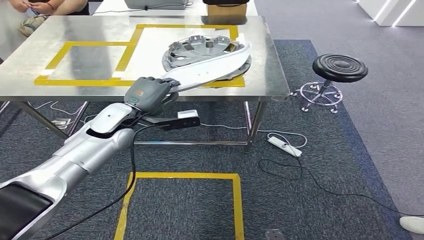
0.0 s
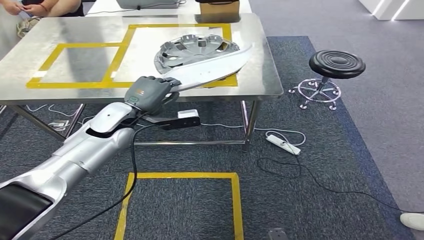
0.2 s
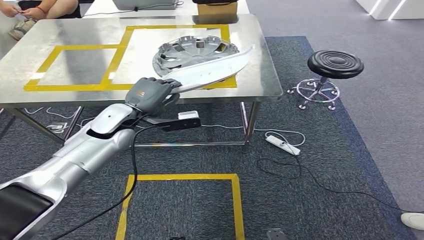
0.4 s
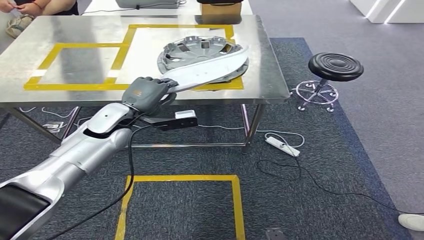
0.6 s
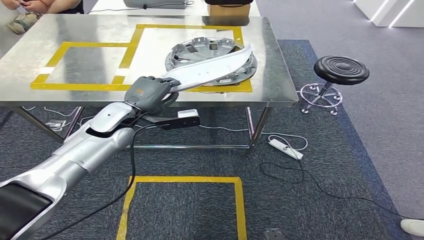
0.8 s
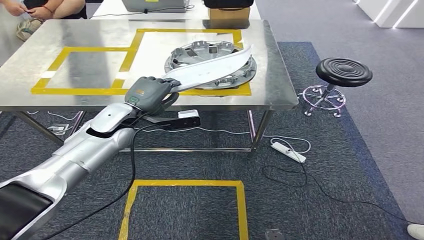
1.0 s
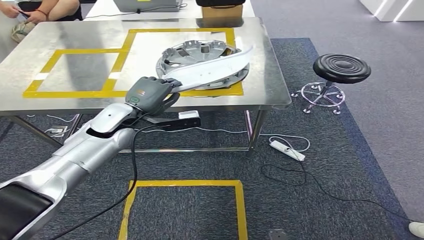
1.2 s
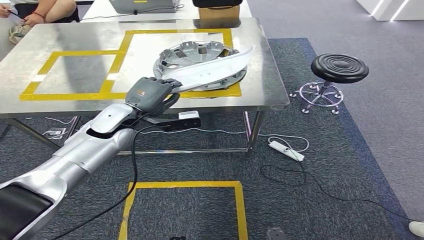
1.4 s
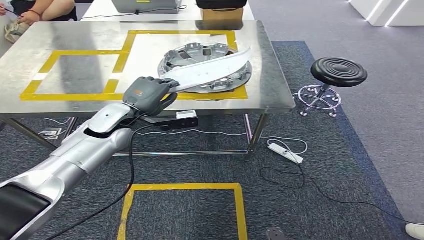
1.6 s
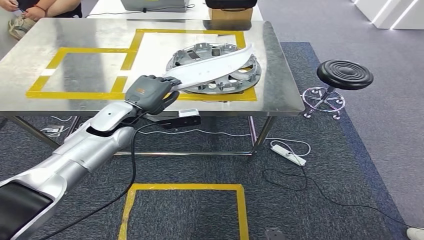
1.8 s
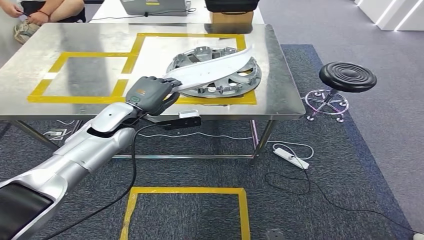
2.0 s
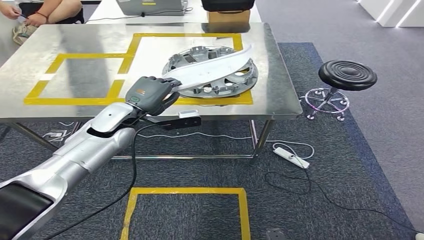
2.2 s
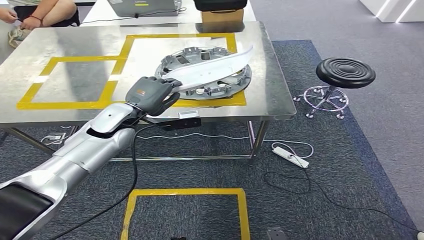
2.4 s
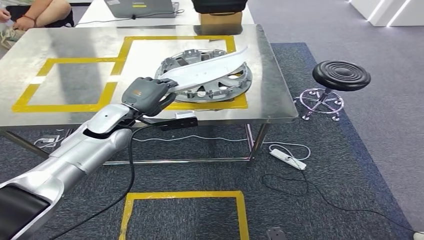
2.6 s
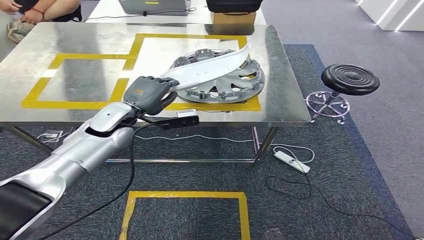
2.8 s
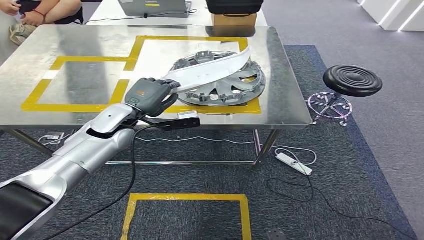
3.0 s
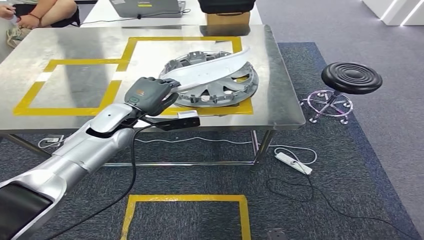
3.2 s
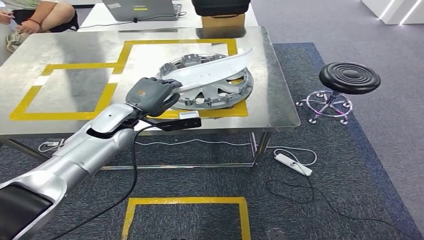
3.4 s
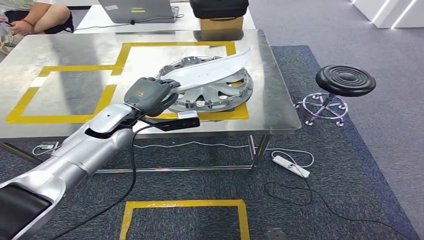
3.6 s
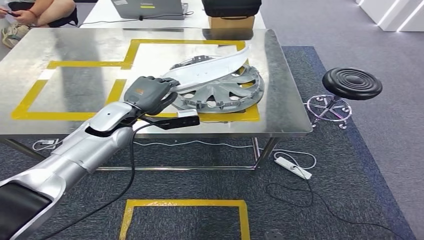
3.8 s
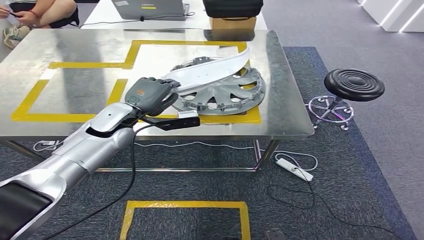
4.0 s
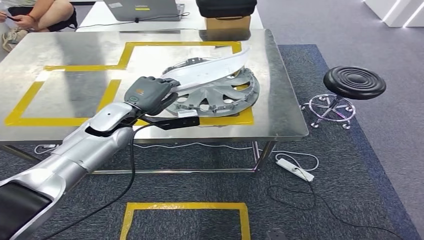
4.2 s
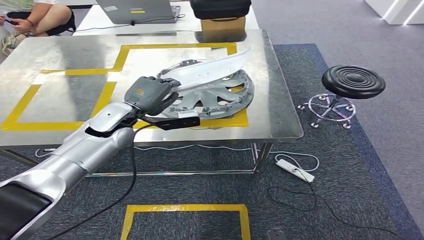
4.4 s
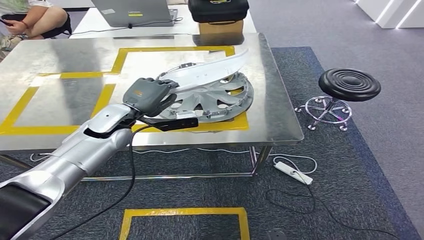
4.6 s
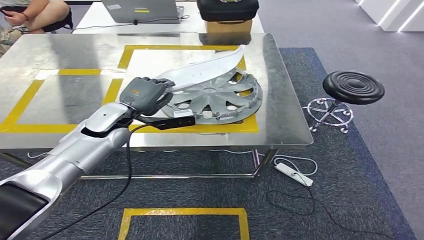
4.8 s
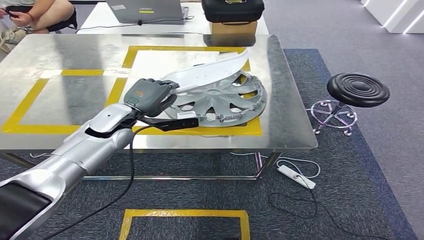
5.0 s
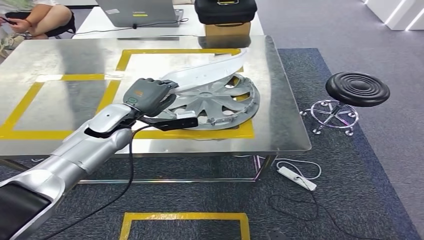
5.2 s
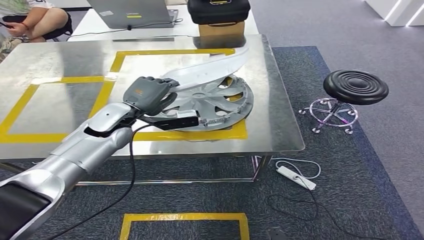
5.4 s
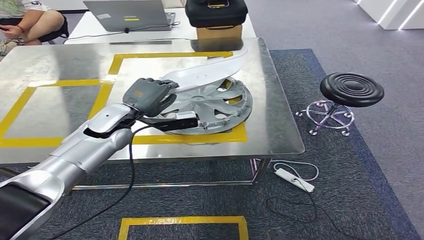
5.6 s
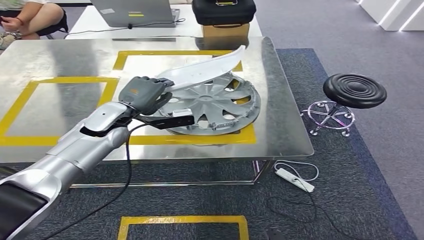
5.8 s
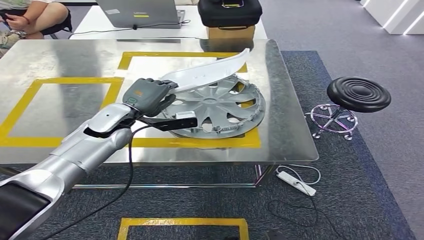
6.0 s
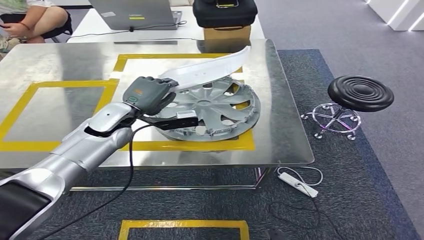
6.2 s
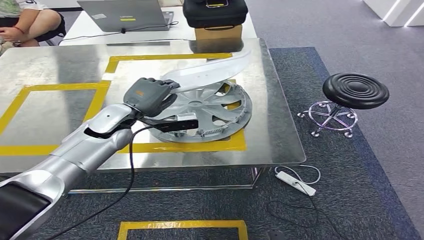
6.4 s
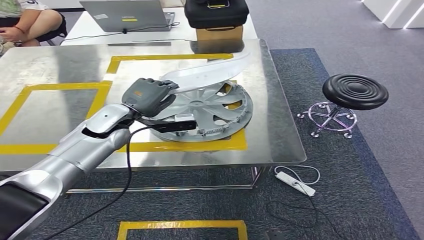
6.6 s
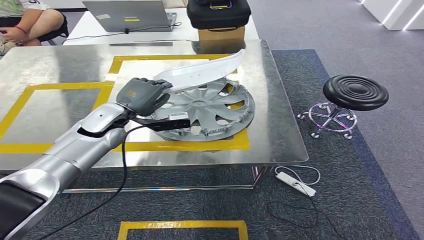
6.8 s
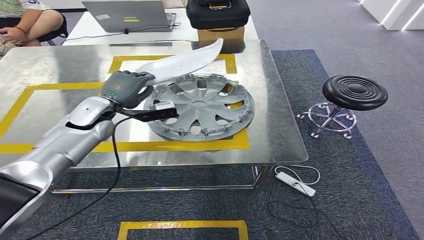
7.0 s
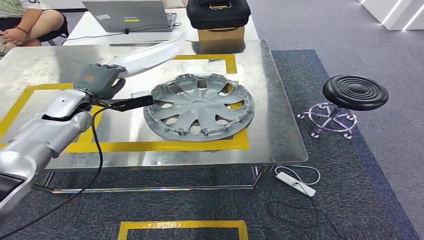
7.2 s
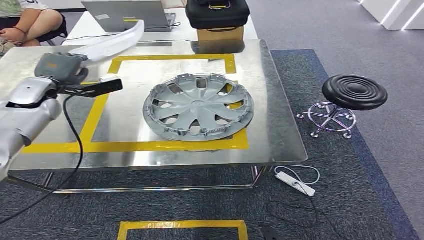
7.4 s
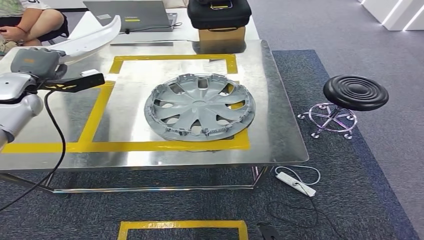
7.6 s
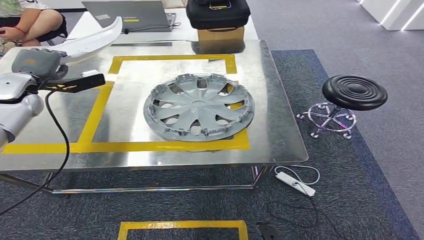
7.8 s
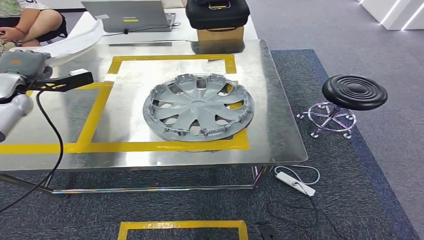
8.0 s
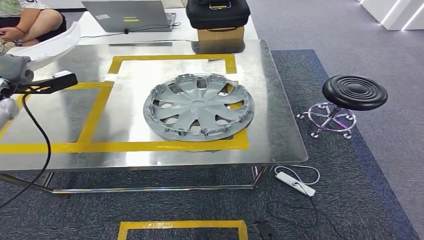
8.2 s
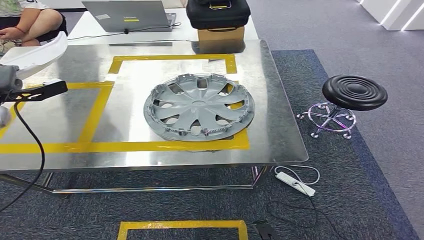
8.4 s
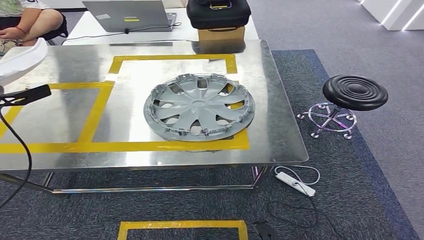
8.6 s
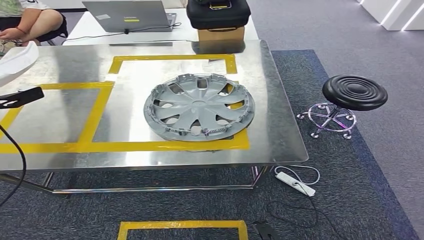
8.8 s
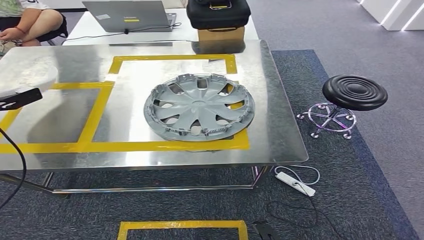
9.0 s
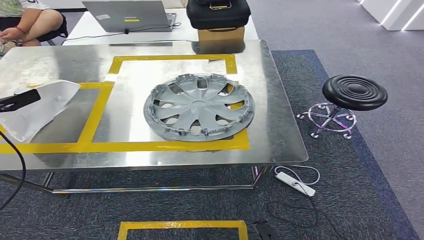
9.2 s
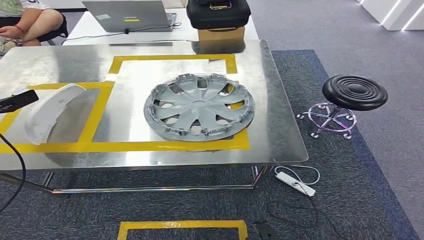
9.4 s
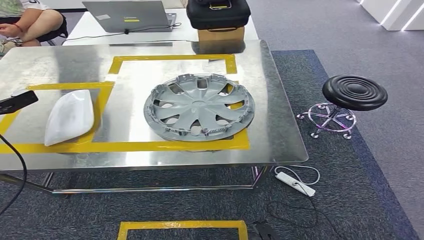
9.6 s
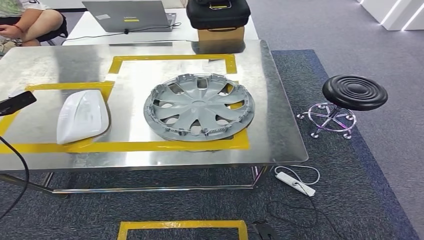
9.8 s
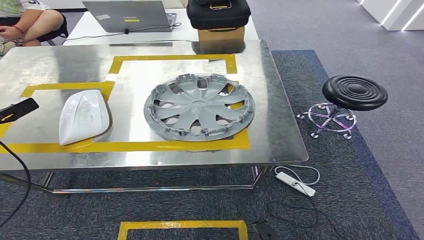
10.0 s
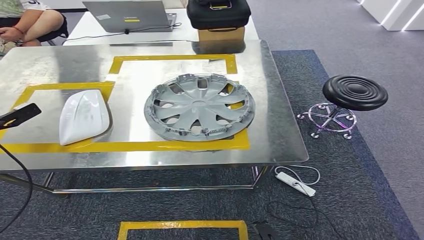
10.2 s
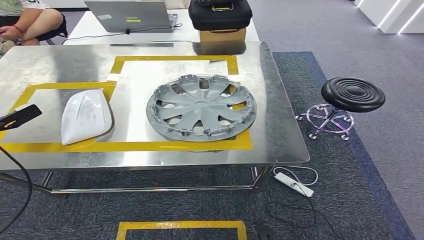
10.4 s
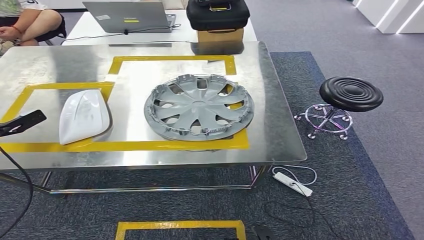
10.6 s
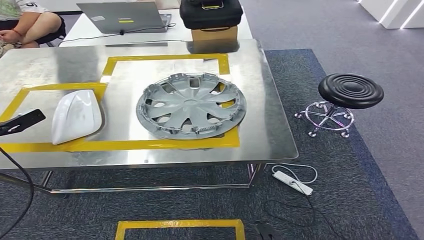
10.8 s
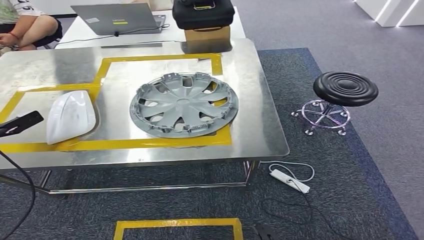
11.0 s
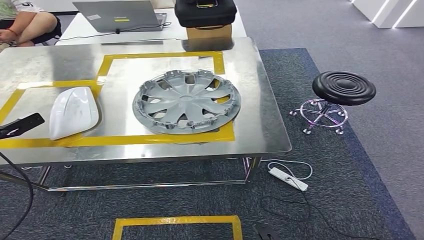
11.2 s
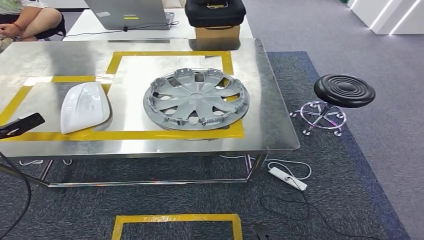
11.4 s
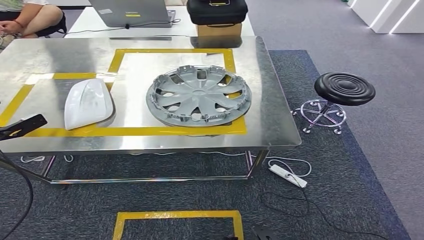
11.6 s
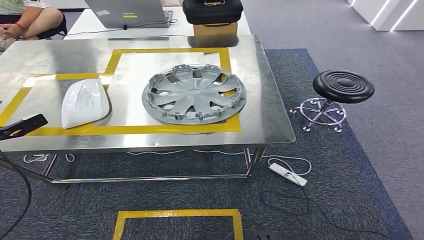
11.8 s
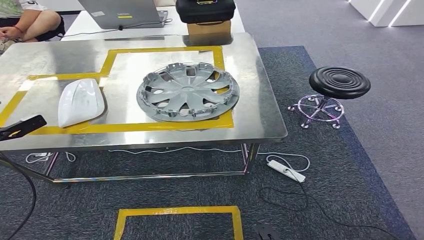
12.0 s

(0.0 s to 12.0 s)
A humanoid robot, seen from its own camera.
Step, 0.0 s - 10.2 s: Insert the small parts into the corresponding slots on the workbench.
7.6 s - 9.0 s: The left hand heads to the left, covering approximately 15 cm.
9.0 s - 10.4 s: The left hand shifts roughly 5 cm downward.

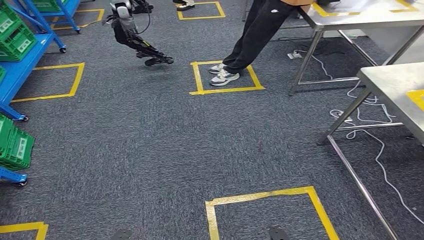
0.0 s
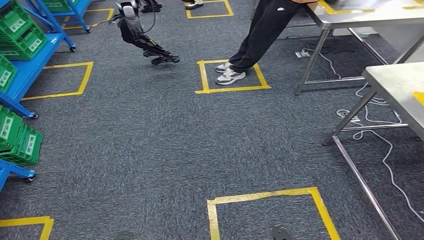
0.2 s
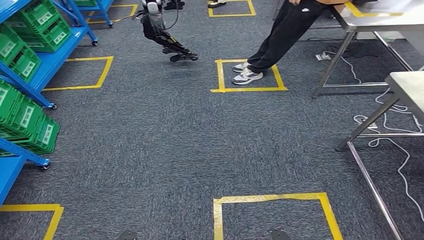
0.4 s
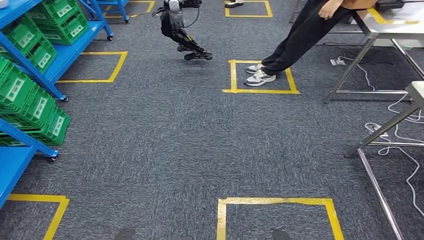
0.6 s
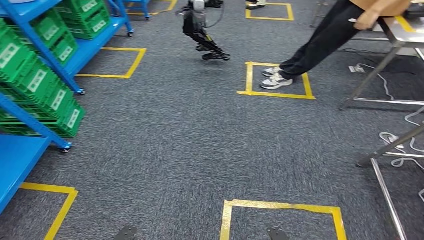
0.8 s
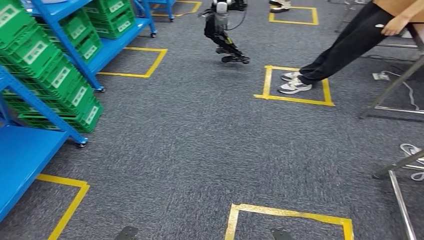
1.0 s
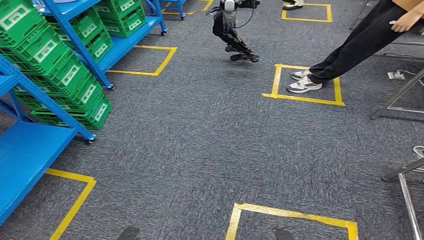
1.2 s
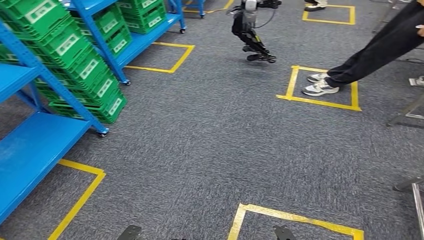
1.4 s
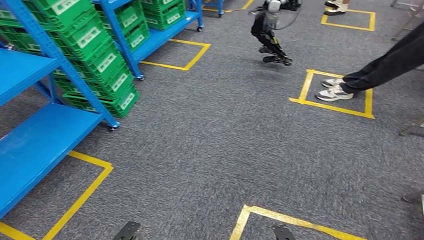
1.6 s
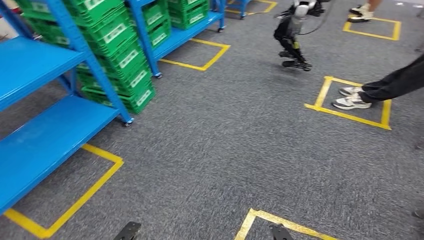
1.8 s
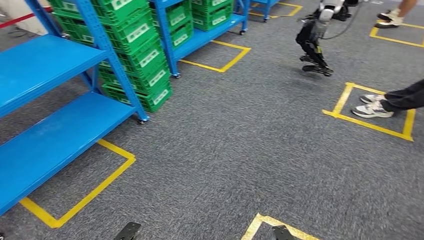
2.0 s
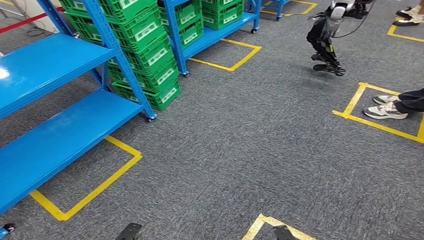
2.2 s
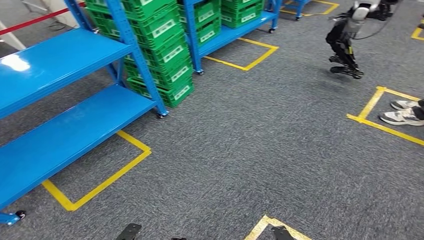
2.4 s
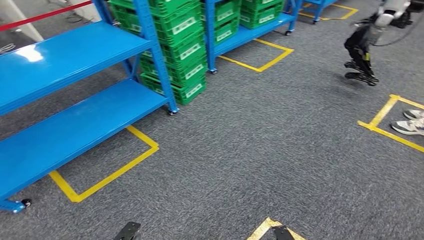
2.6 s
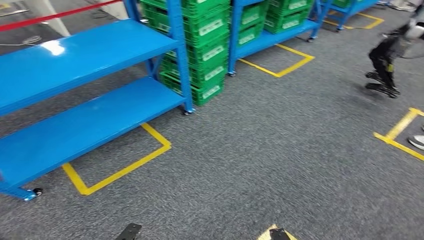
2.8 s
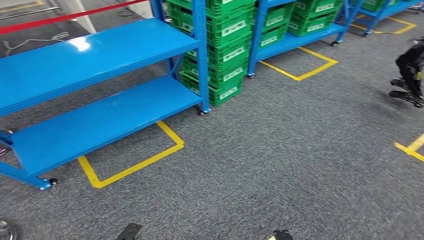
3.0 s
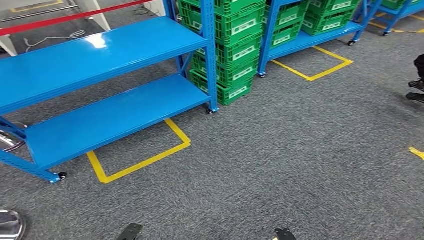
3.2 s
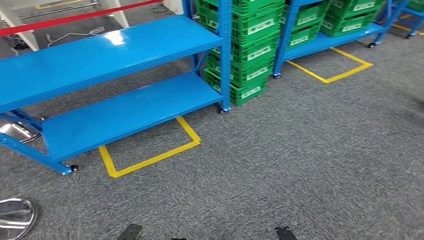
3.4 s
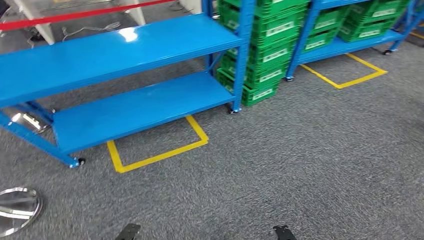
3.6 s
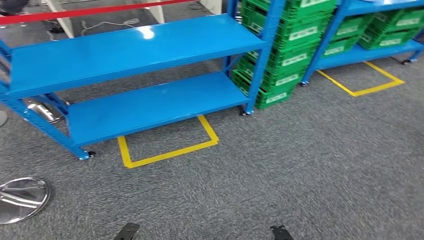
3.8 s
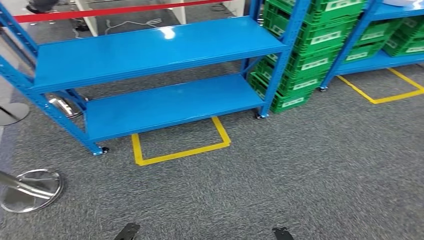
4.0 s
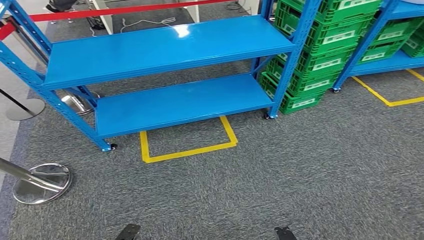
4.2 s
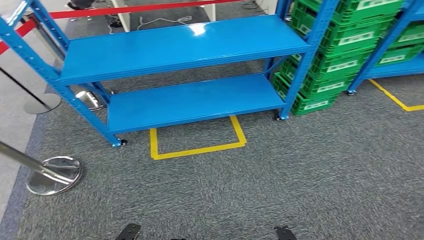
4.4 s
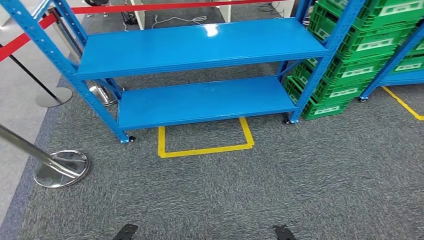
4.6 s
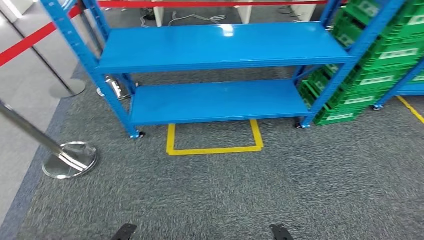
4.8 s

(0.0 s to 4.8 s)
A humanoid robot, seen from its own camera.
Step, 0.0 s - 4.8 s: Return to the initial position at the workbench.
